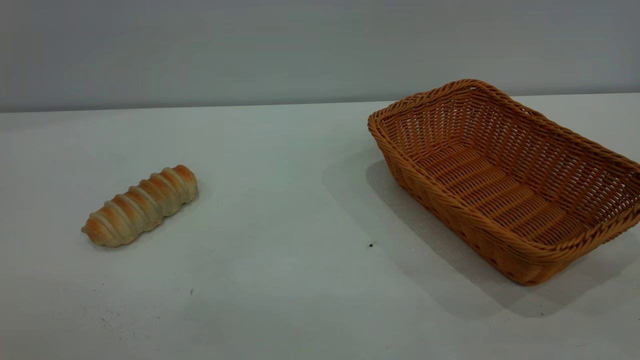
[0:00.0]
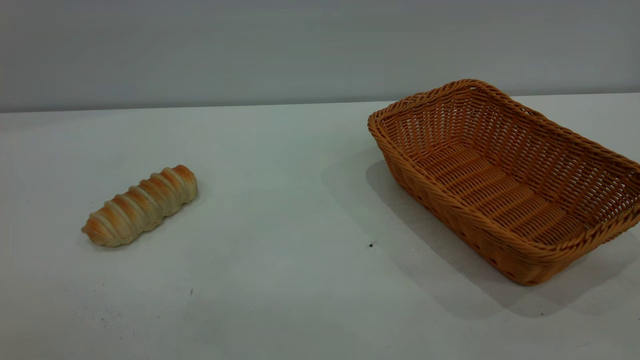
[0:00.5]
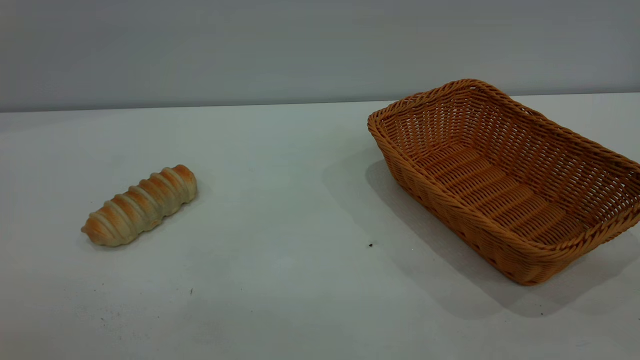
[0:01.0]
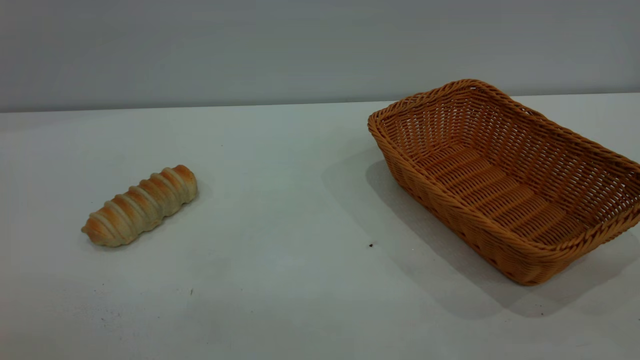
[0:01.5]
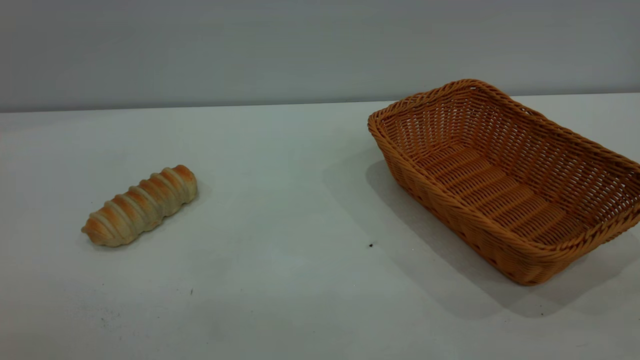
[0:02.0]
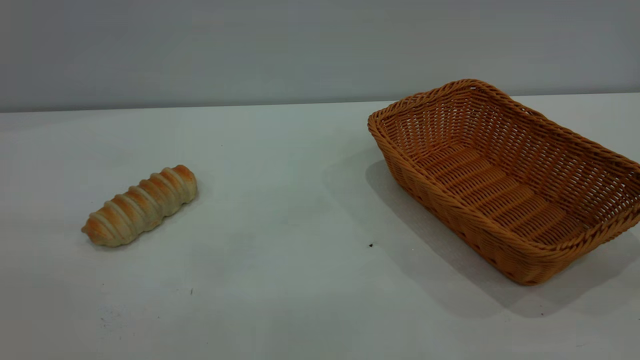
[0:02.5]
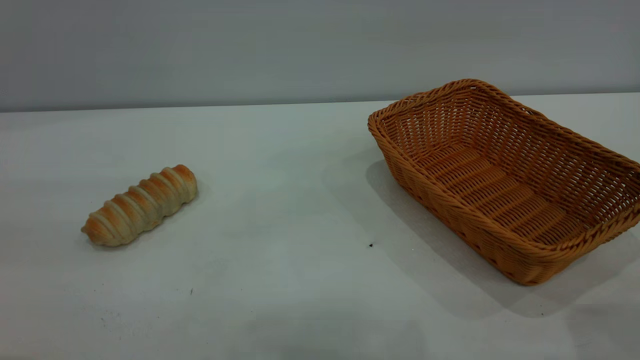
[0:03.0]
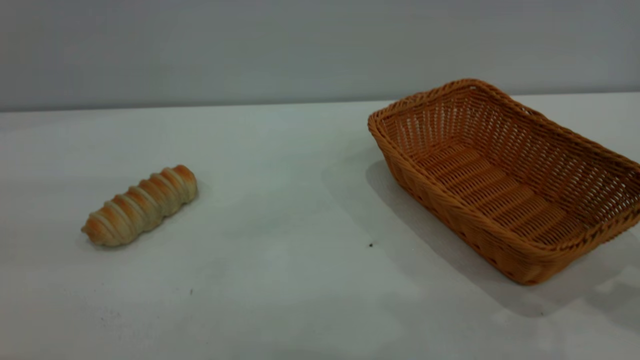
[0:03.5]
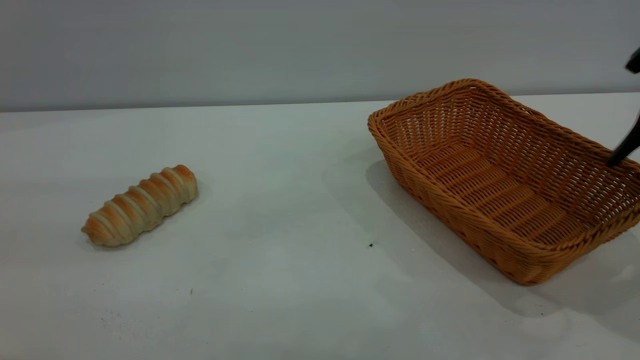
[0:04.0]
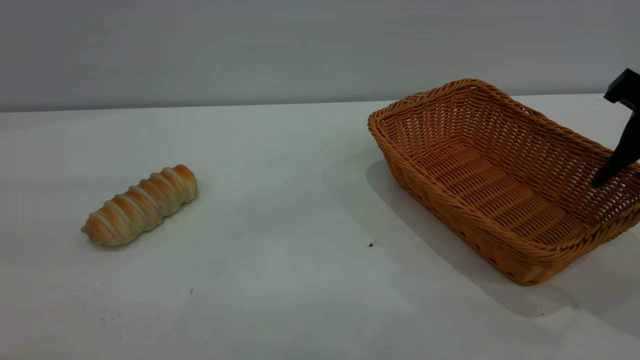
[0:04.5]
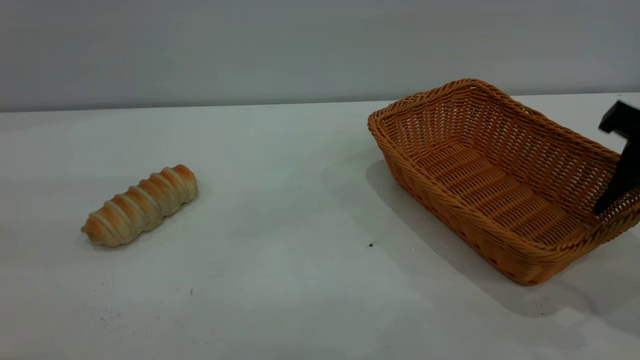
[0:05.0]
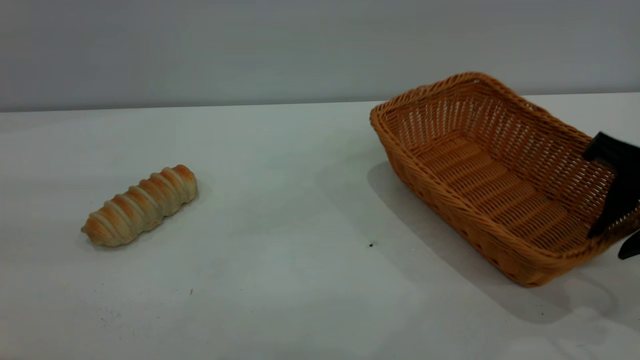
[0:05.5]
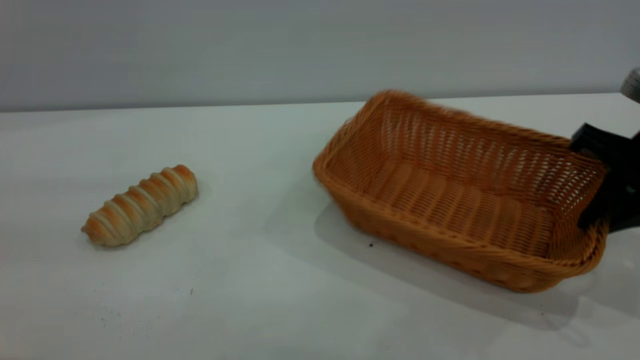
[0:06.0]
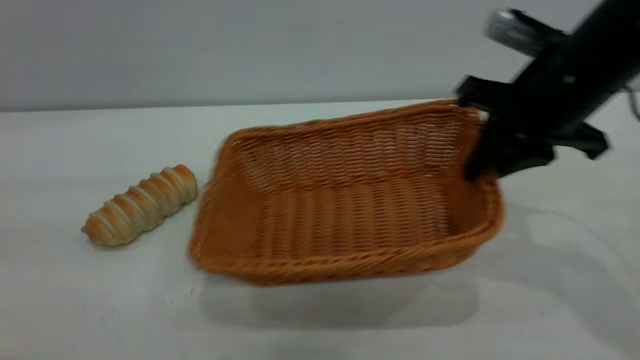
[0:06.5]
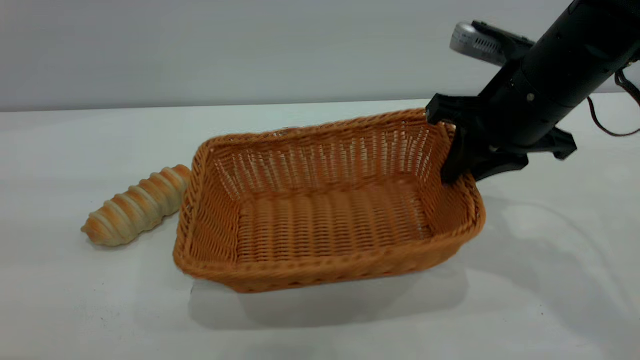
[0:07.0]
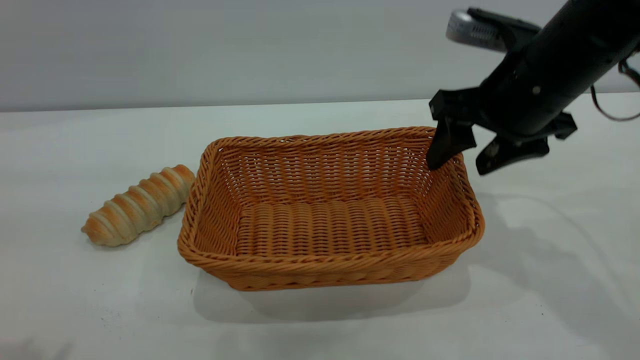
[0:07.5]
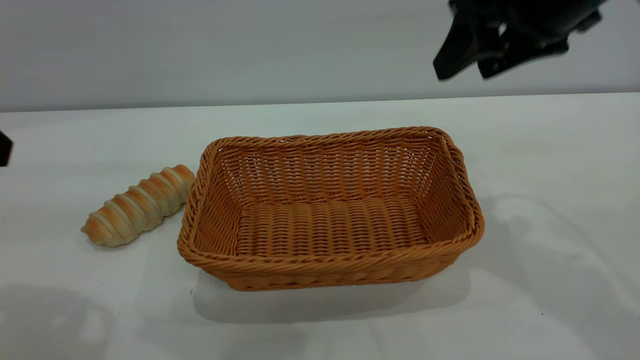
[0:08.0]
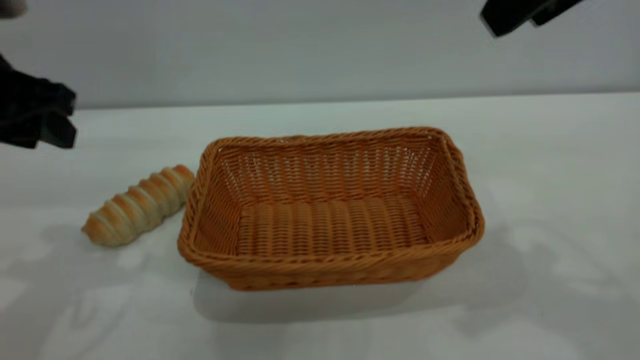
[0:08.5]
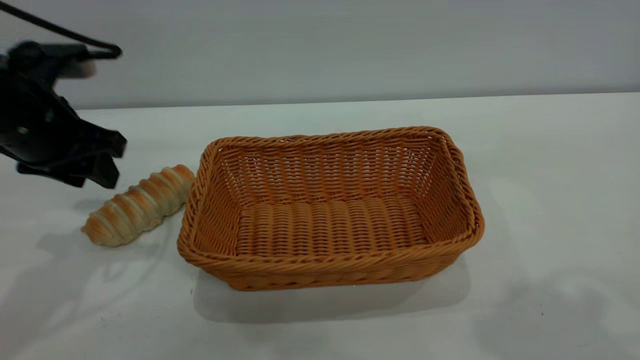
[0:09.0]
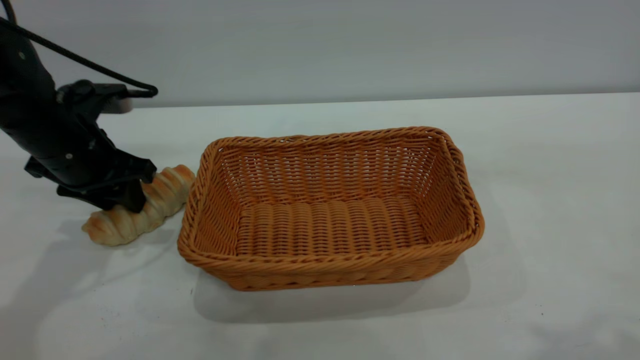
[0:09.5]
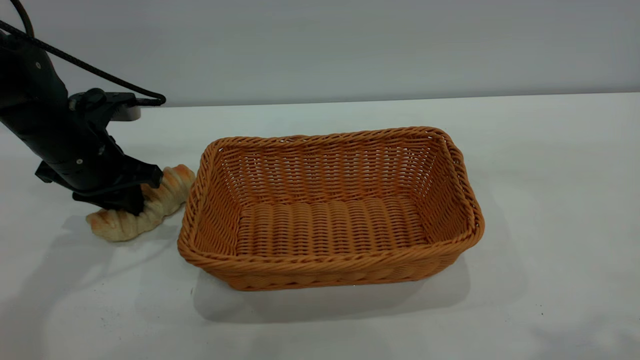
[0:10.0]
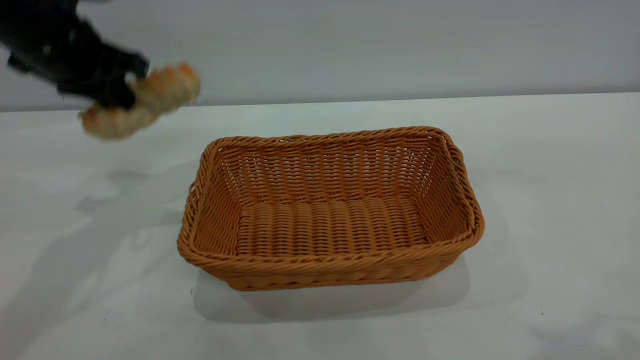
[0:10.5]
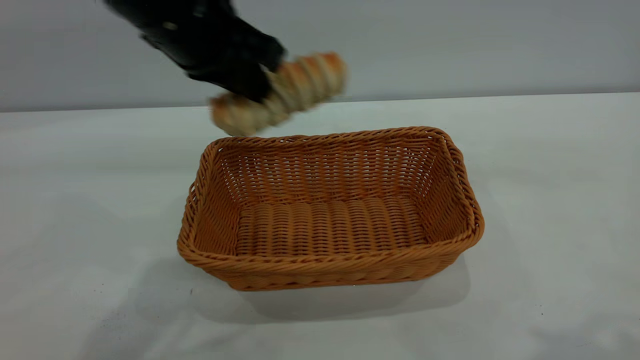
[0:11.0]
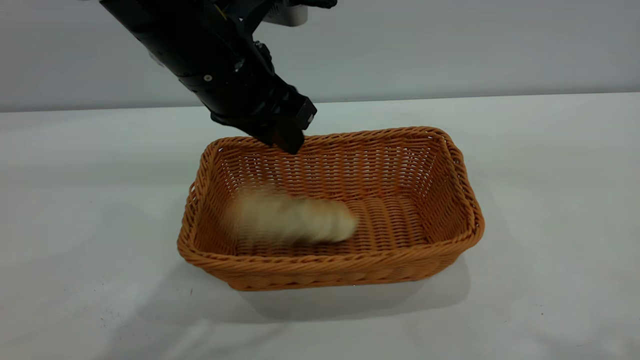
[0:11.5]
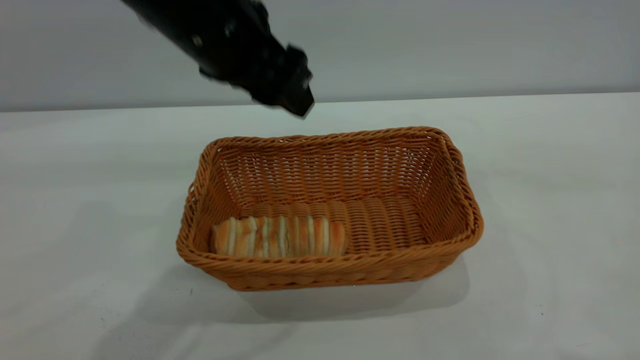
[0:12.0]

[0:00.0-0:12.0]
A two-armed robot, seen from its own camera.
Task of the whole recording: One hand grasps the yellow basket and places it in the middle of the table, while the other hand picks up the long bread and puts it into the yellow basket.
Step, 0:00.0 to 0:07.5: Move the basket to the center of view.
Step, 0:10.5 to 0:12.0: place the bread into the basket.
0:04.0 to 0:06.0: The right gripper goes about 10 cm downward, and closes up.
0:06.0 to 0:08.0: The right gripper is displaced upward and to the left by approximately 15 cm, and opens, while the left gripper shifts roughly 10 cm forward and downward.
0:08.0 to 0:10.0: The right gripper shifts approximately 25 cm backward and upward. The left gripper heads forward and downward, covering roughly 25 cm, and closes its fingers.
0:10.0 to 0:12.0: The left gripper travels to the right and upward by some 25 cm, and opens its fingers.
